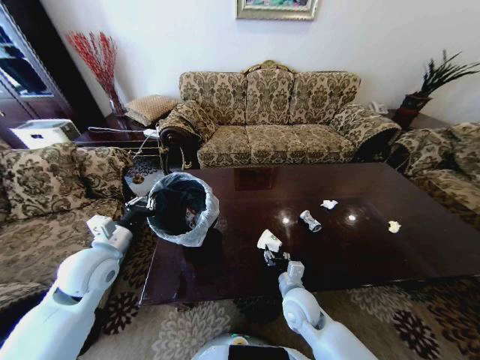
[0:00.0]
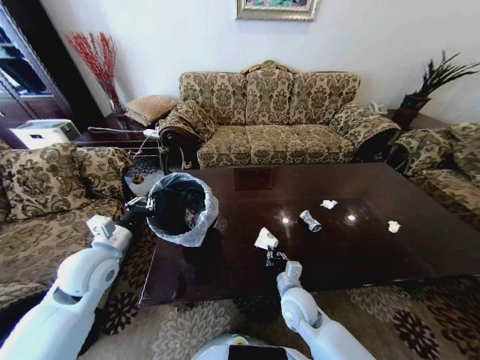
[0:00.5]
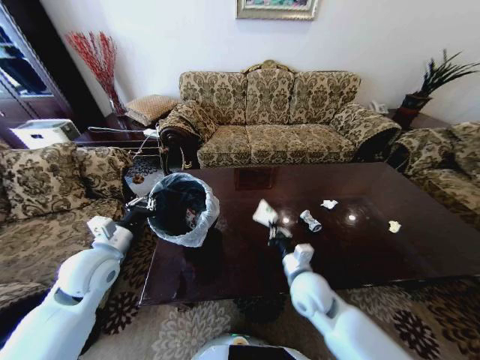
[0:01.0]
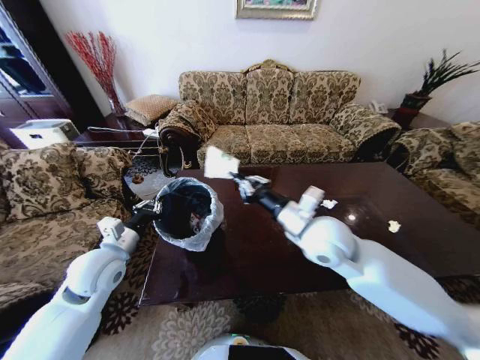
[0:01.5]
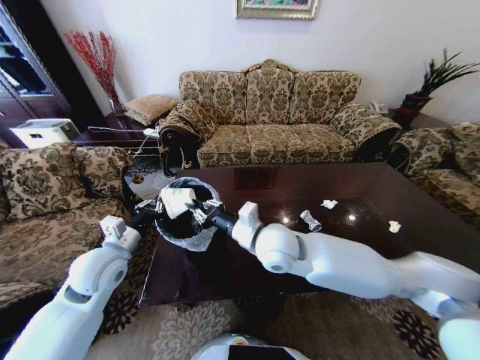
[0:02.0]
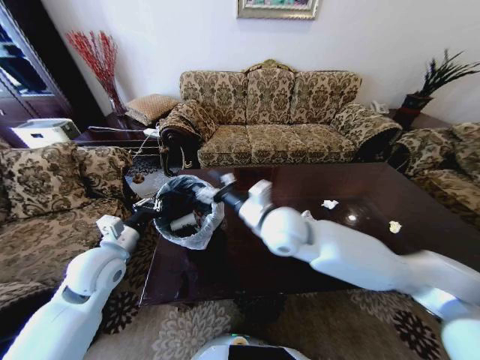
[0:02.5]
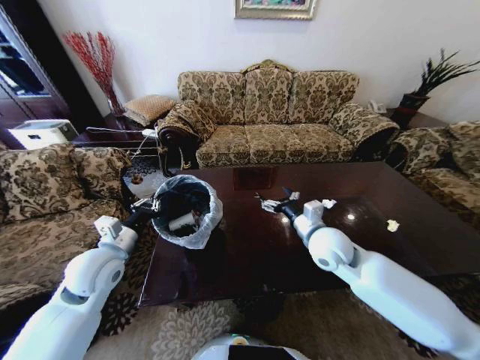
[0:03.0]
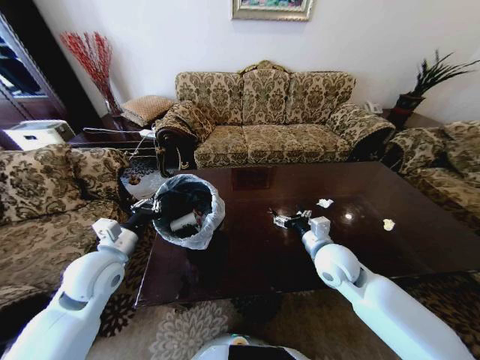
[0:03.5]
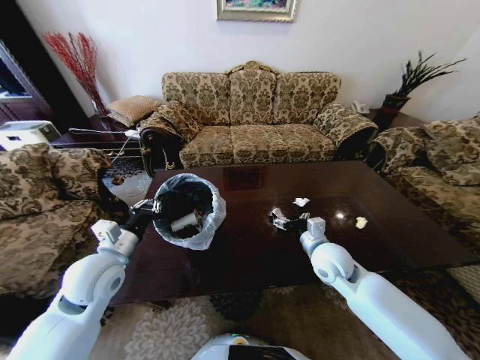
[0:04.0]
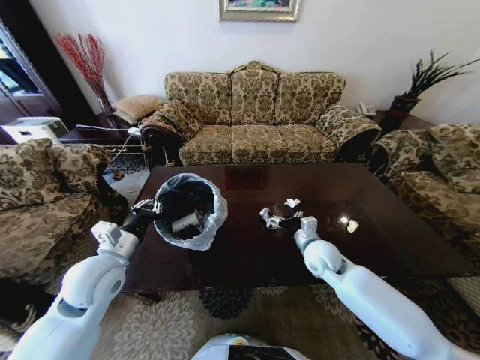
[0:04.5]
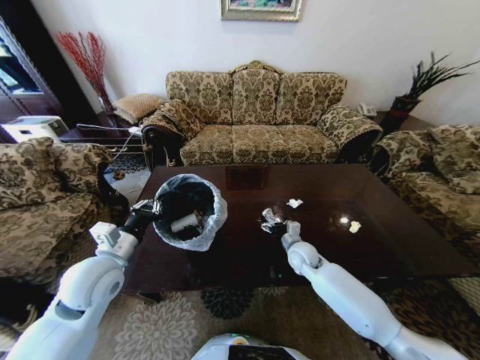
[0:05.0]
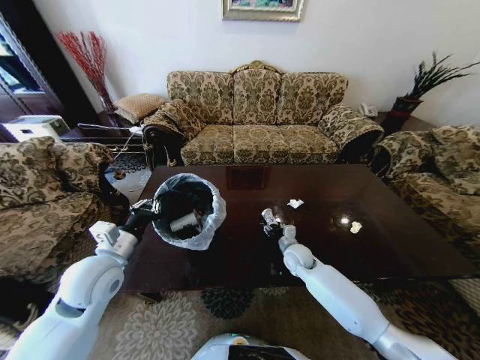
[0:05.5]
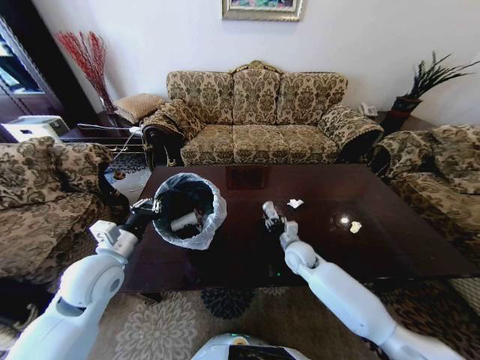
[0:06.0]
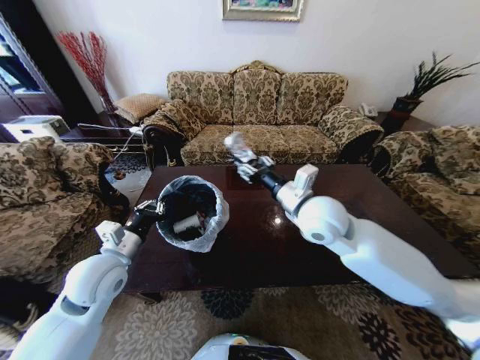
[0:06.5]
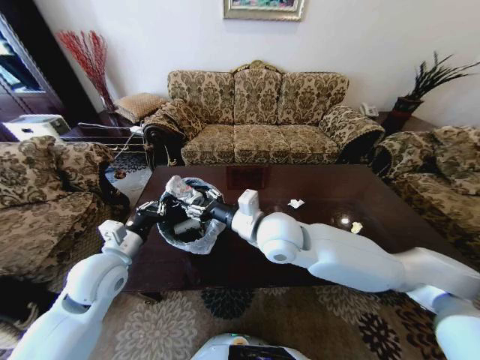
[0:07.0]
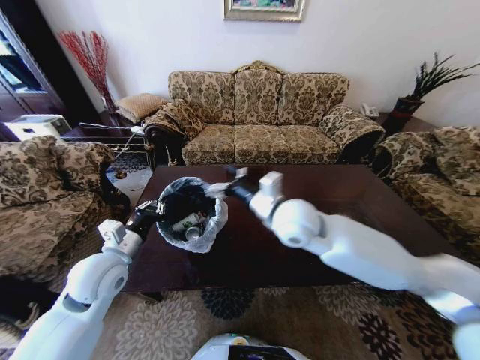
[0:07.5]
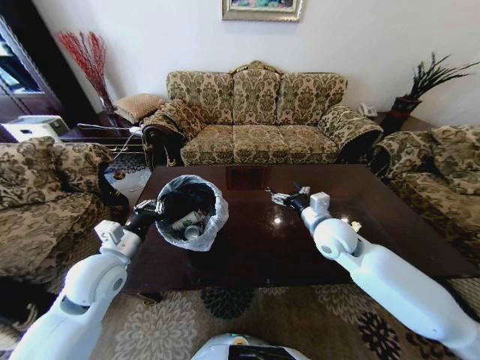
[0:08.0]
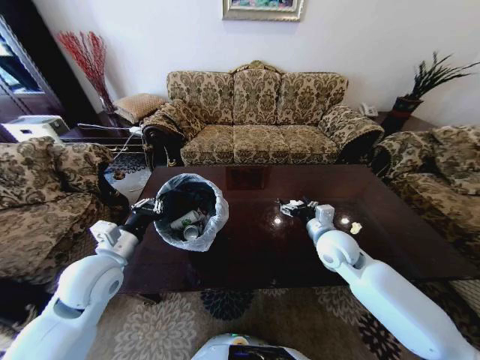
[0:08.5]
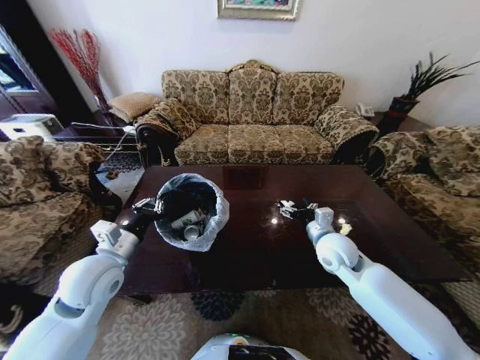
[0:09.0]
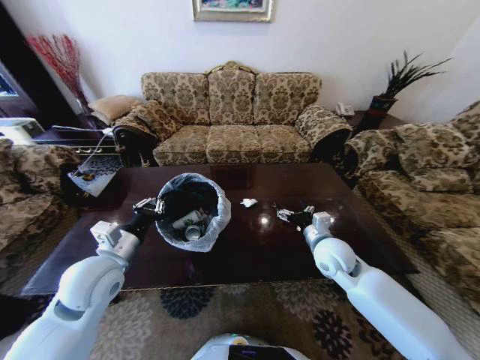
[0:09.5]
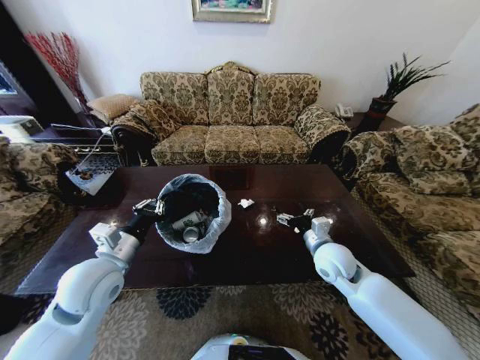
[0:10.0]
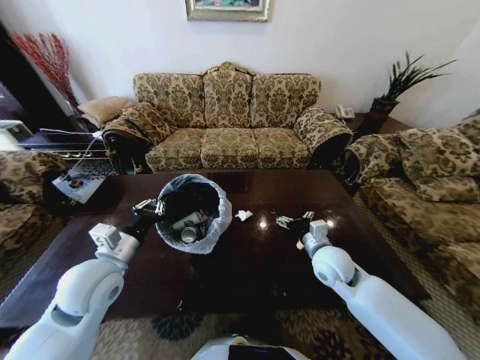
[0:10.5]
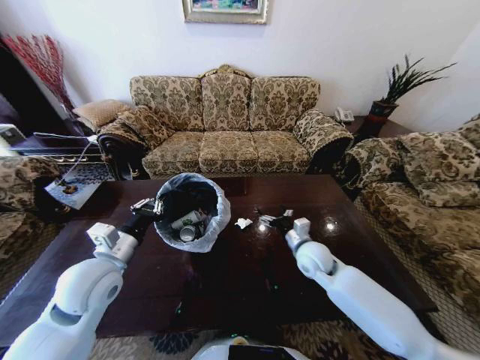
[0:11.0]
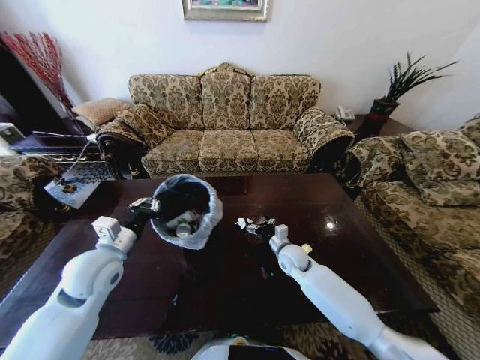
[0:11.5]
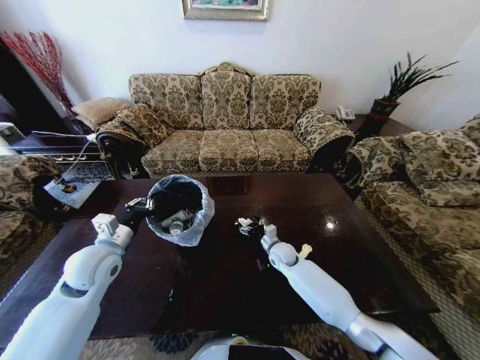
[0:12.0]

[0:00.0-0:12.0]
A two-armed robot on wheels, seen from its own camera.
Task of the whole recording: Move to the front of the table and place the trash on the table into the trash bin.
0:00.0 to 0:02.0: The right gripper heads upward and to the left, covering roughly 25 cm, and closes.
0:02.0 to 0:04.0: The right gripper is displaced to the right and downward by approximately 20 cm, and opens up.
0:04.0 to 0:06.0: The right gripper travels downward and forward by roughly 15 cm, and closes.
0:06.0 to 0:08.0: The right gripper travels upward by approximately 15 cm, and opens its fingers.
0:08.0 to 0:10.0: The right gripper heads downward, covering some 5 cm.
0:10.0 to 0:12.0: The left gripper changes place by approximately 5 cm; the right gripper shifts approximately 20 cm downward, forward and to the left.

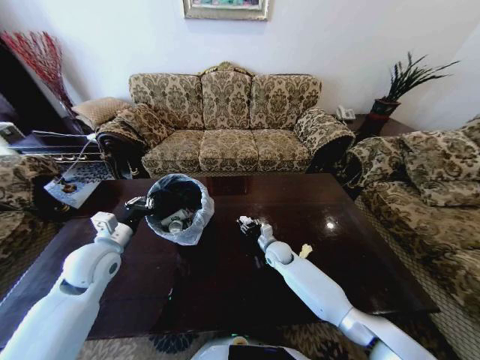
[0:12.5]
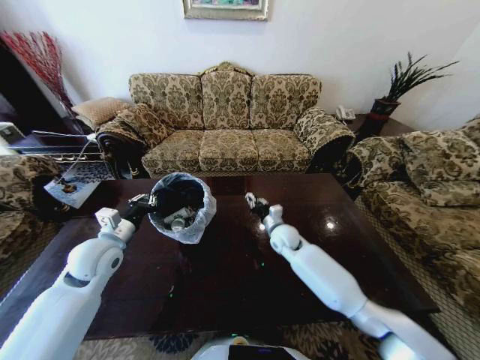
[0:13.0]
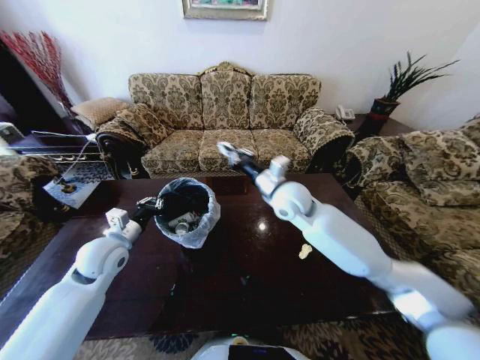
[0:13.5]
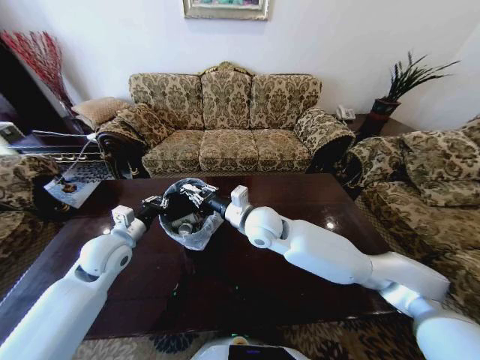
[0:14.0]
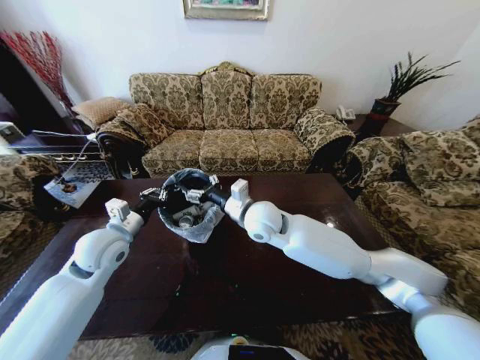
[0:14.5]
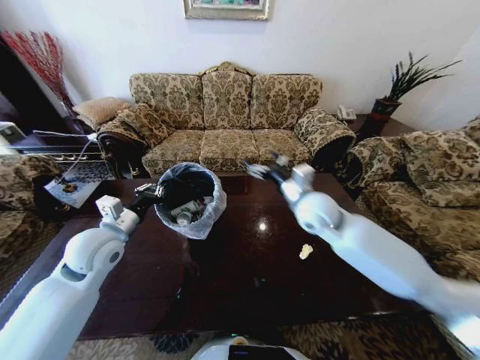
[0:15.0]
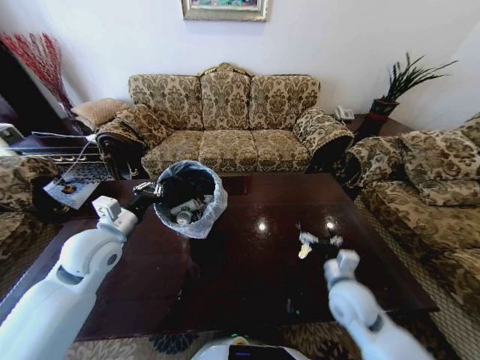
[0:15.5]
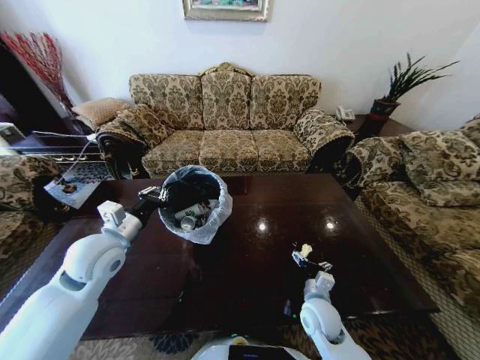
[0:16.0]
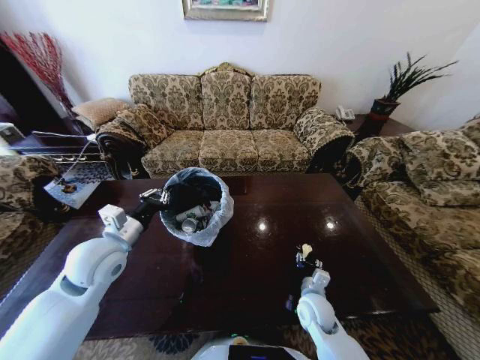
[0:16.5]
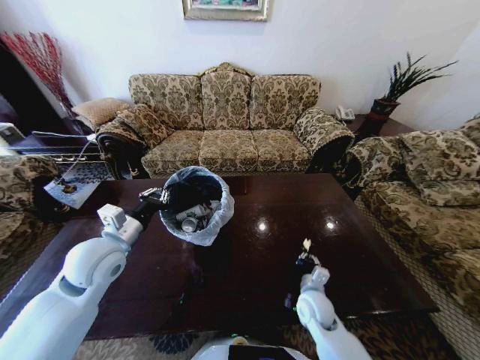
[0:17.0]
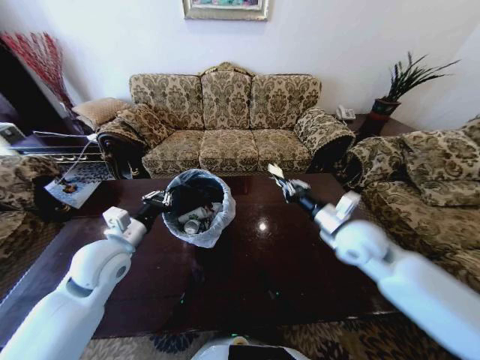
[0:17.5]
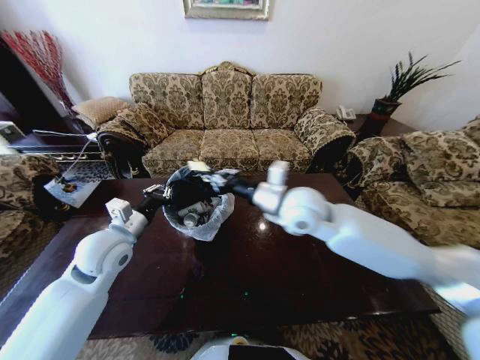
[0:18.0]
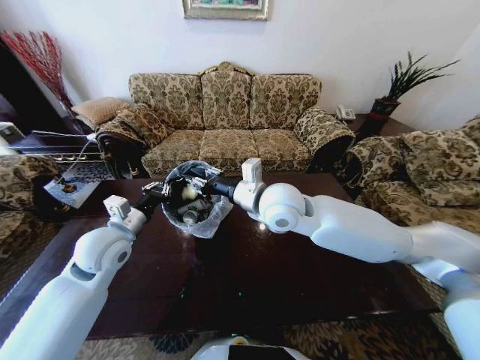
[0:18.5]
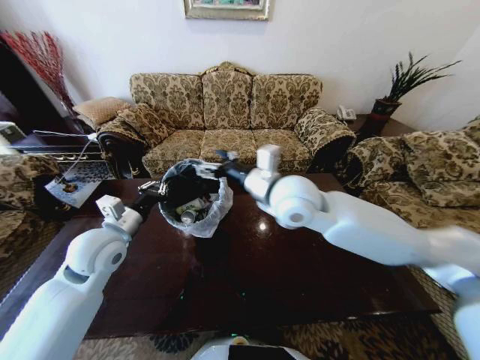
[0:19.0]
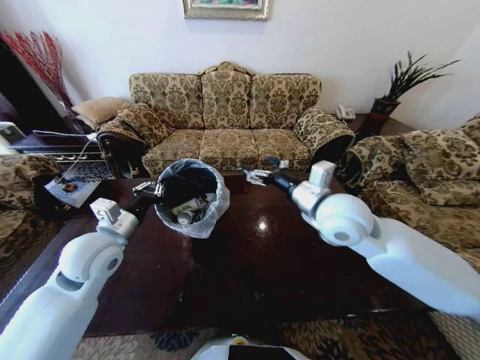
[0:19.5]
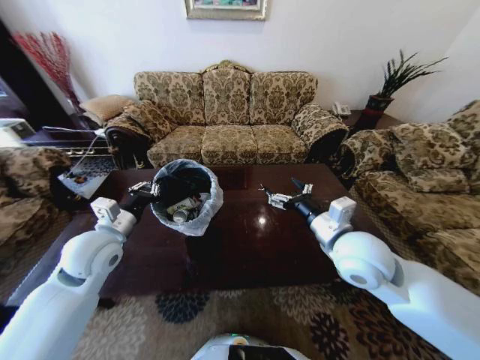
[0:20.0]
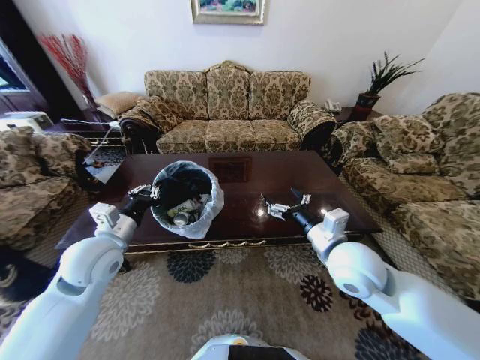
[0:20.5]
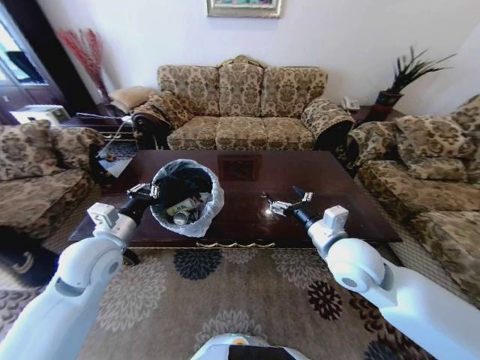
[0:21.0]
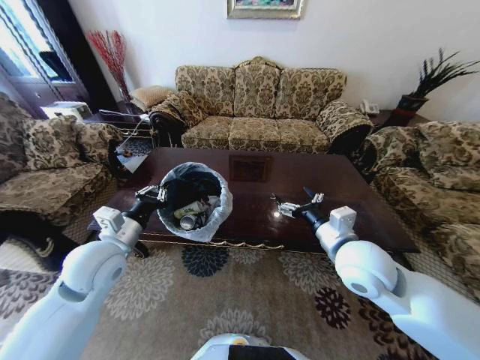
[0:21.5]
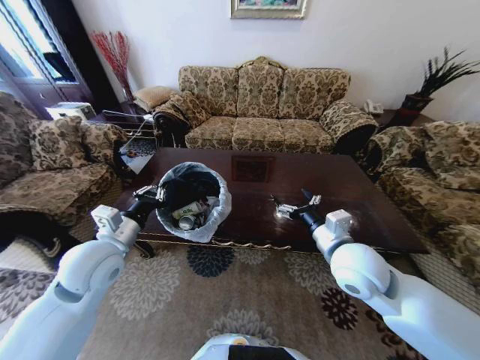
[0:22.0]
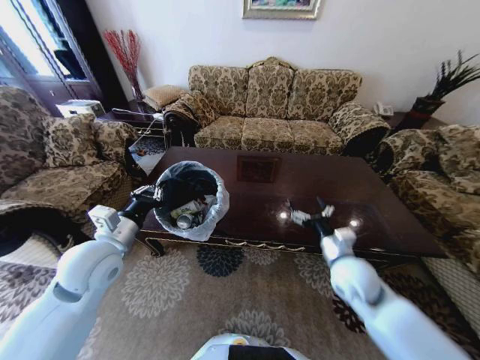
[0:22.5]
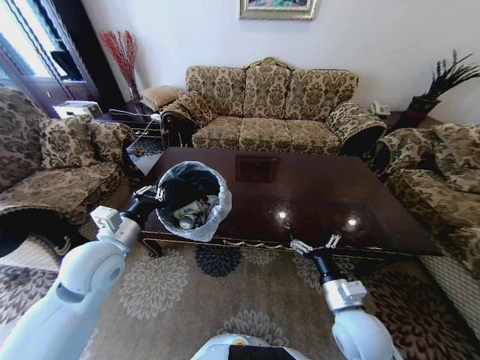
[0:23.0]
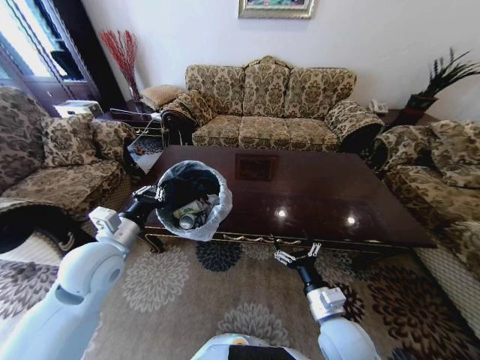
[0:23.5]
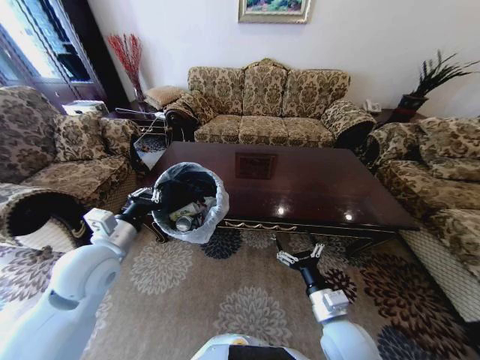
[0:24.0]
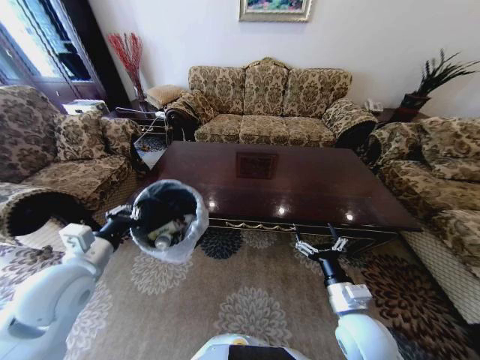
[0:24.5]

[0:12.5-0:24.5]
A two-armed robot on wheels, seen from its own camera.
Task of the whole recording: Move to the front of the table and place the trash on the table into the trash bin.
0:12.5 to 0:14.5: The right gripper goes roughly 25 cm upward, and closes, then reopens.
0:14.5 to 0:16.5: The right gripper goes some 35 cm downward, to the right and backward.
0:16.5 to 0:18.5: The right gripper goes some 40 cm upward and to the left.
0:18.5 to 0:20.5: The right gripper goes some 20 cm to the right, downward and backward, and opens up.
0:20.5 to 0:22.5: The right gripper is displaced downward and to the right by roughly 10 cm.
0:22.5 to 0:24.5: The left gripper shifts by approximately 5 cm; the right gripper is displaced backward by about 10 cm.

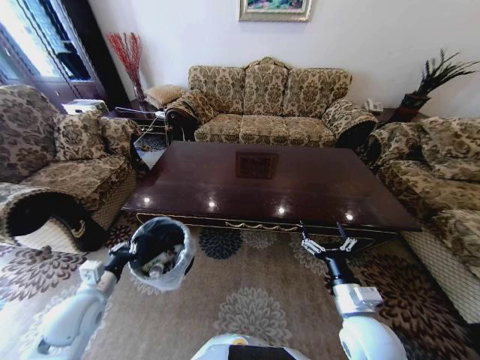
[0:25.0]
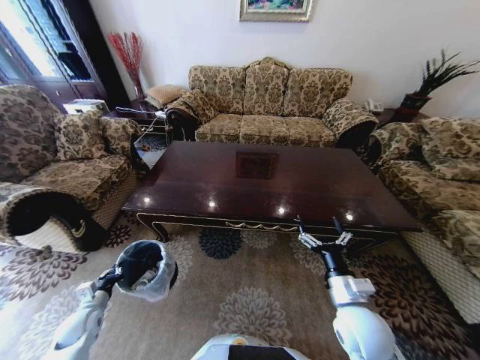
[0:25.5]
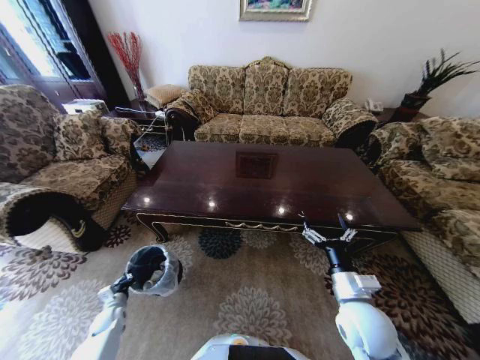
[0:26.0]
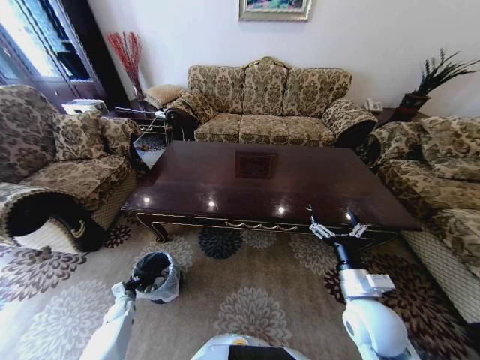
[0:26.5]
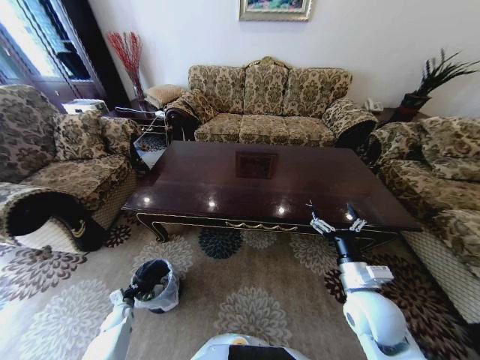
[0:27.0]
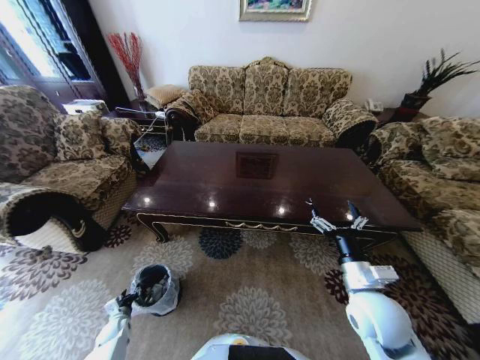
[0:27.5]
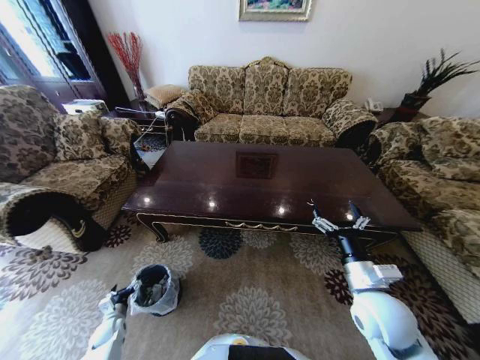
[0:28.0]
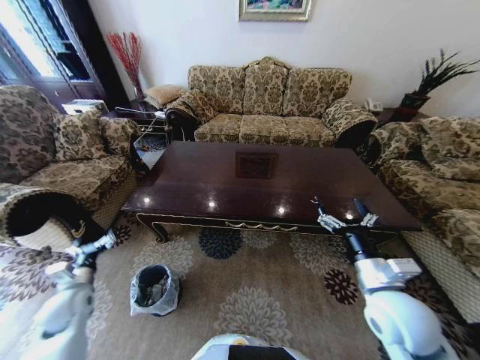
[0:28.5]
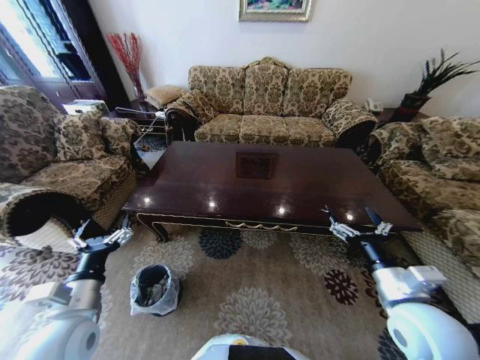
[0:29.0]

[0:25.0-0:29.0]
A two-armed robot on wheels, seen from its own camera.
Task of the whole recording: Move to the front of the table and place the trash on the table into the trash bin.
0:25.0 to 0:27.0: The right gripper moves about 5 cm. The left gripper heads downward, covering about 30 cm.
0:27.0 to 0:29.0: The right gripper goes about 5 cm upward; the left gripper is displaced upward by some 40 cm, and opens its fingers.
